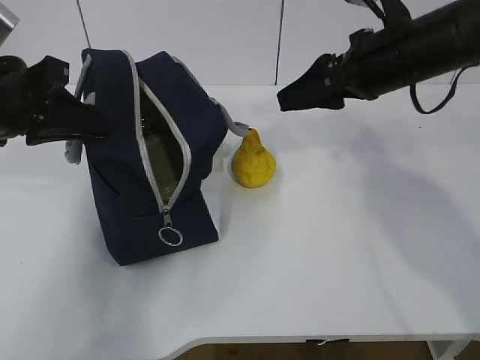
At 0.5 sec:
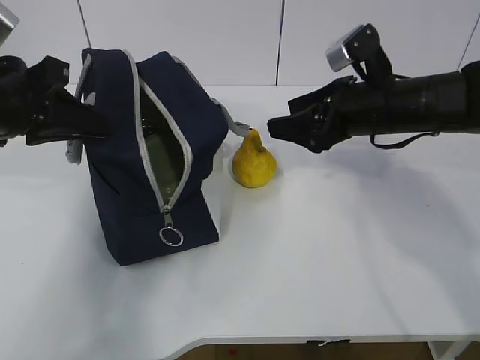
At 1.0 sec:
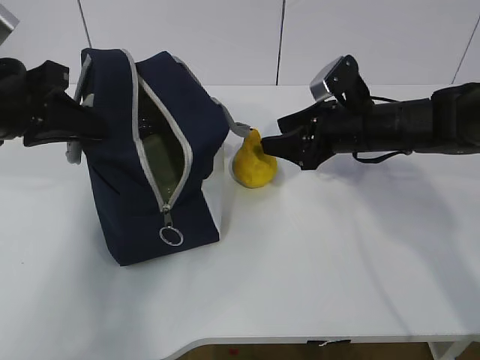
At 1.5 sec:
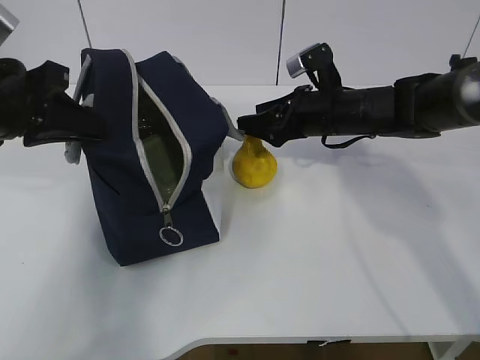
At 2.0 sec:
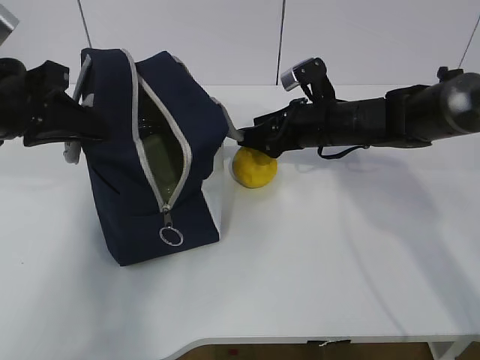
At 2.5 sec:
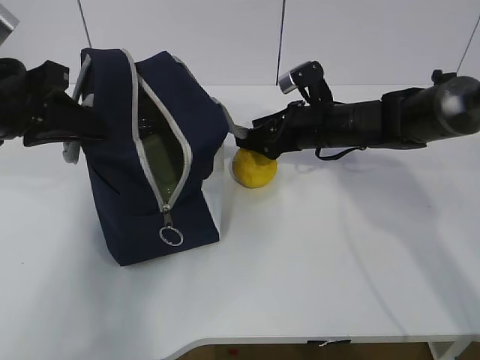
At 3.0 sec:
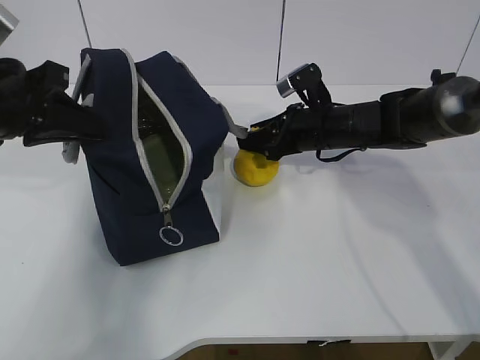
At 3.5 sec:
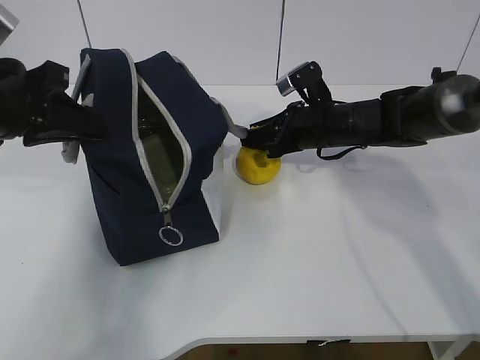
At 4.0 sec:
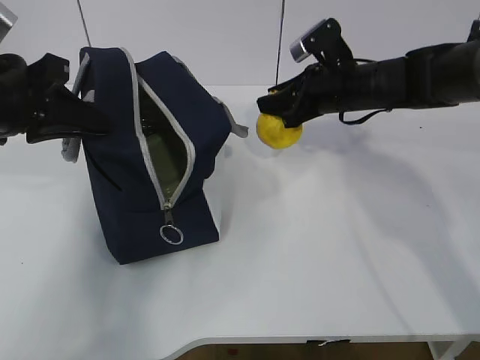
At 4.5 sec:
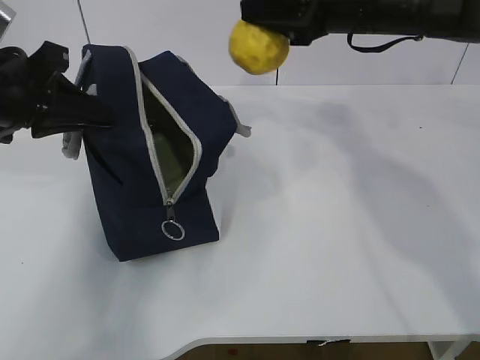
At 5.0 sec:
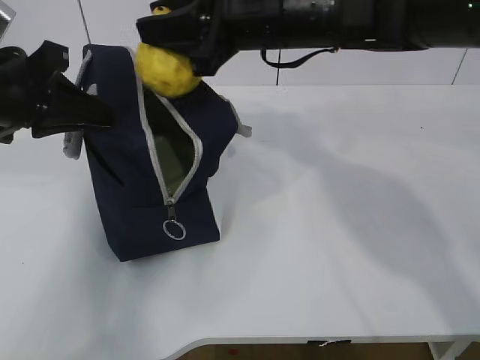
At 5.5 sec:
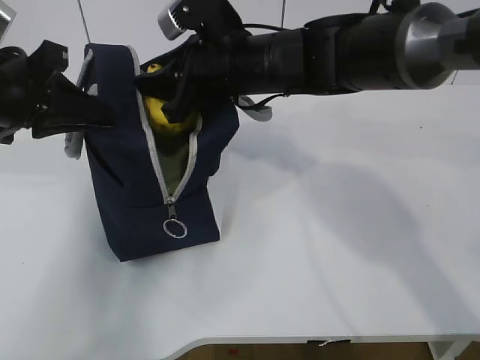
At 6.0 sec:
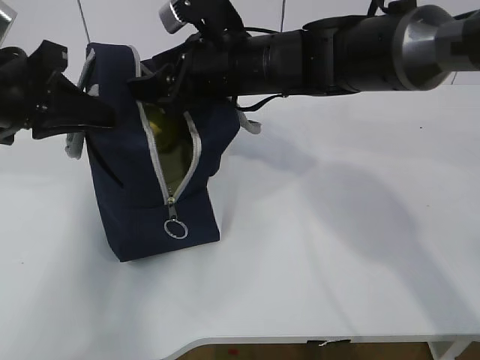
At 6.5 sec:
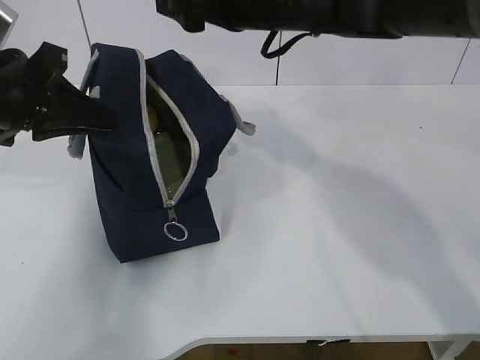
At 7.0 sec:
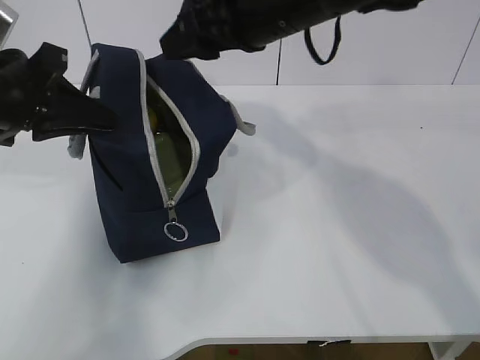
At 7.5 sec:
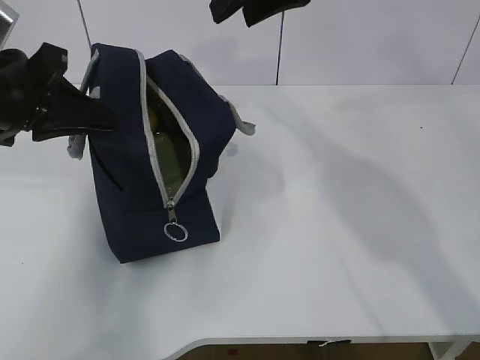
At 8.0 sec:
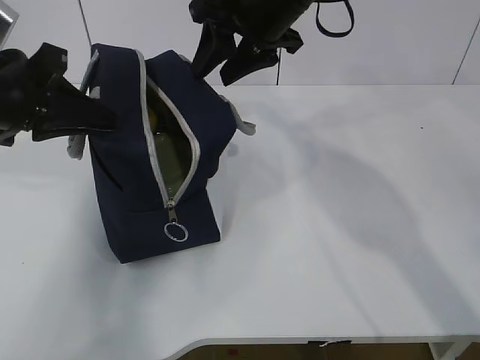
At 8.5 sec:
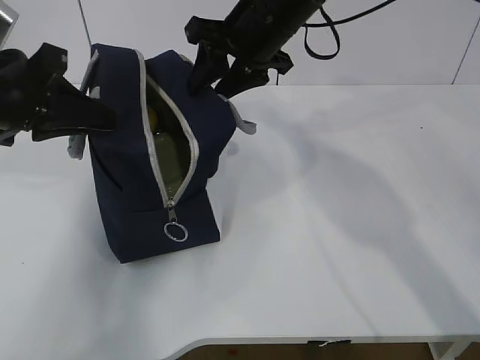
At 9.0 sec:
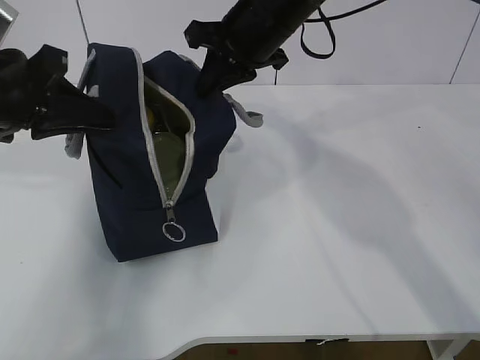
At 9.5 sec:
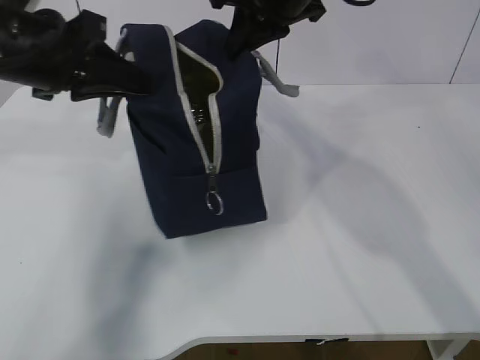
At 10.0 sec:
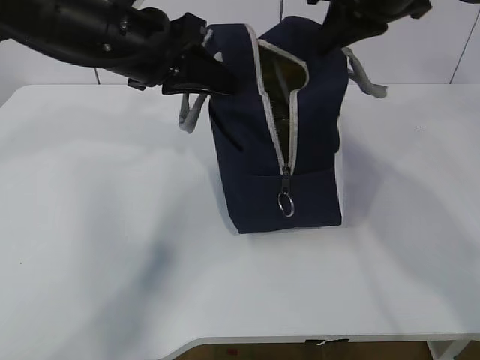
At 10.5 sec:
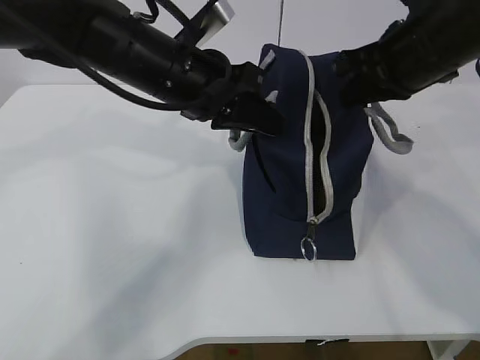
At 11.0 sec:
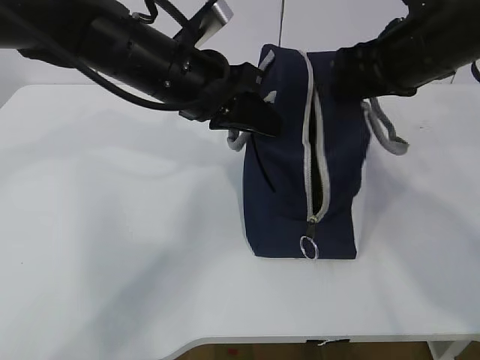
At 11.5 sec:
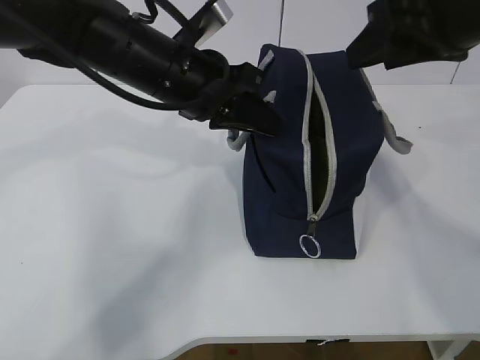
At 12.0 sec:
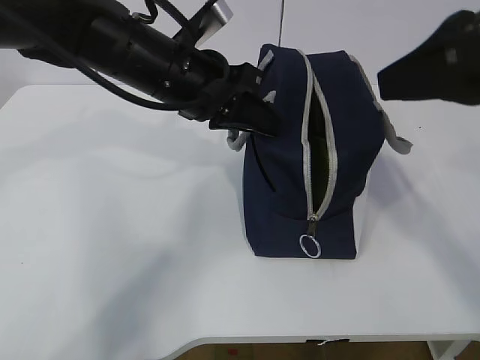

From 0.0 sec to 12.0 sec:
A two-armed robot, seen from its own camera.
Step, from 0.0 sec to 3.5 sec: Grasp the pear with the right gripper.
Step, from 4.0 sec to 7.0 sec: Place the pear into the package with the right gripper.
From 0.0 sec to 2.0 sec: The right gripper moves downward and forward, about 15 cm.
From 2.0 sec to 4.0 sec: The right gripper ends up some 5 cm from where it was, and closes.
From 4.0 sec to 6.0 sec: The right gripper travels to the left and upward by about 15 cm, and opens up.
From 6.0 sec to 8.0 sec: The right gripper shifts some 5 cm upward.
From 8.0 sec to 10.0 sec: The grippers both shift to the right by about 10 cm. The right gripper closes.
From 10.0 sec to 12.0 sec: The right gripper moves backward, roughly 15 cm, and opens its fingers, while the left gripper moves to the right, roughly 5 cm.

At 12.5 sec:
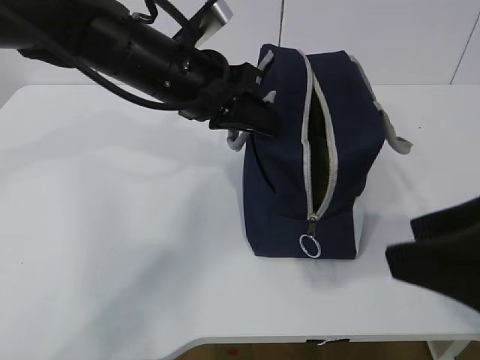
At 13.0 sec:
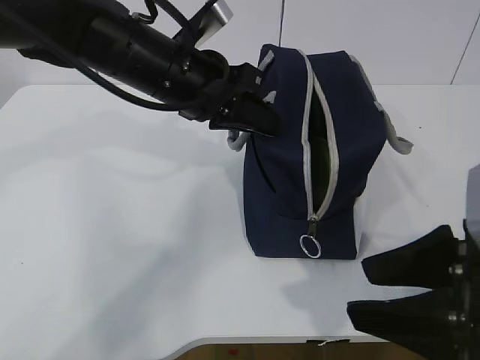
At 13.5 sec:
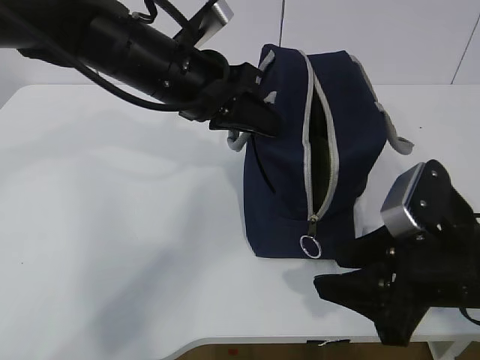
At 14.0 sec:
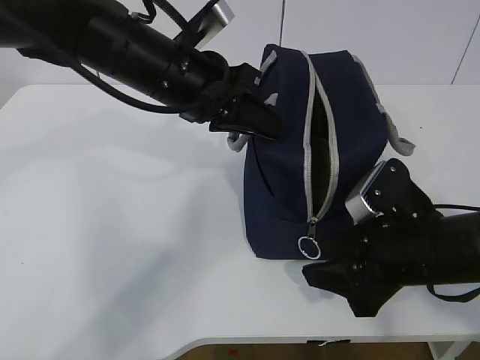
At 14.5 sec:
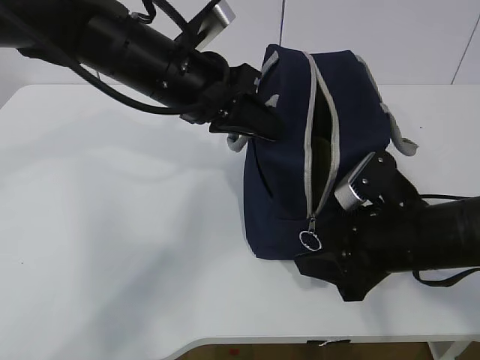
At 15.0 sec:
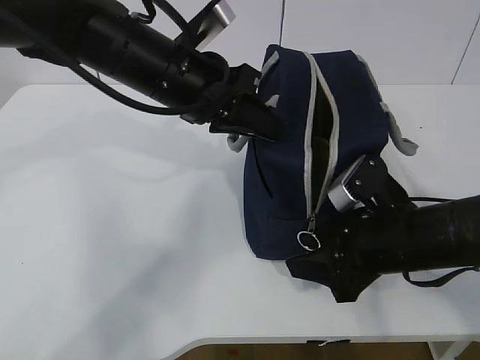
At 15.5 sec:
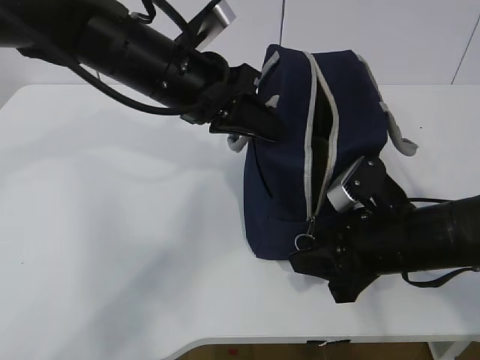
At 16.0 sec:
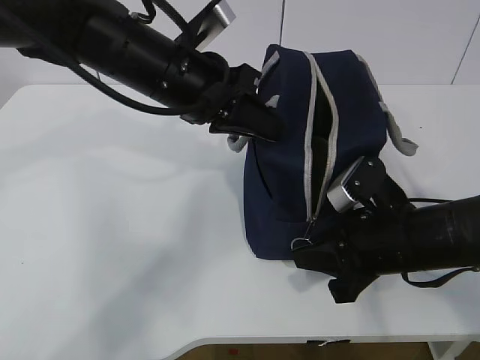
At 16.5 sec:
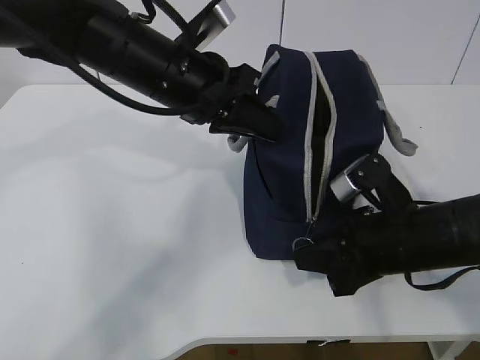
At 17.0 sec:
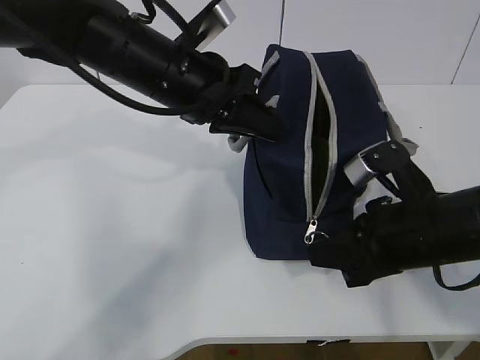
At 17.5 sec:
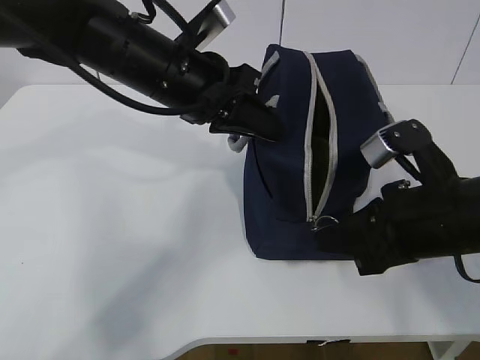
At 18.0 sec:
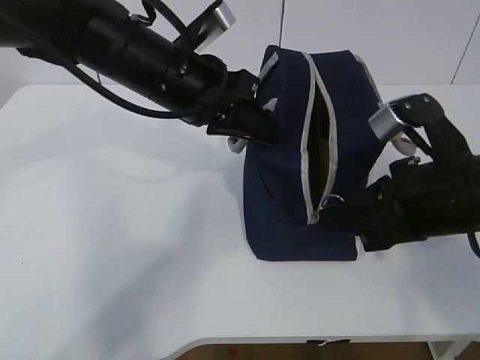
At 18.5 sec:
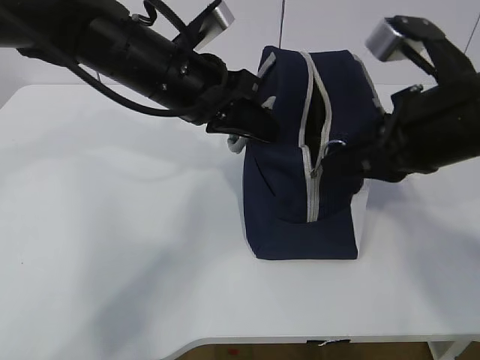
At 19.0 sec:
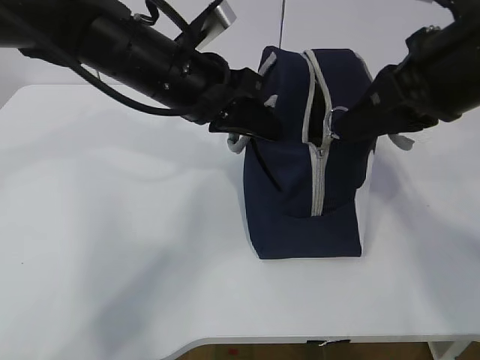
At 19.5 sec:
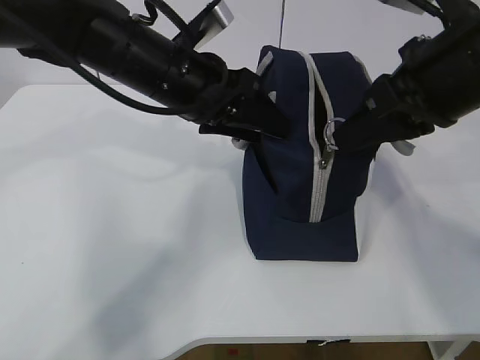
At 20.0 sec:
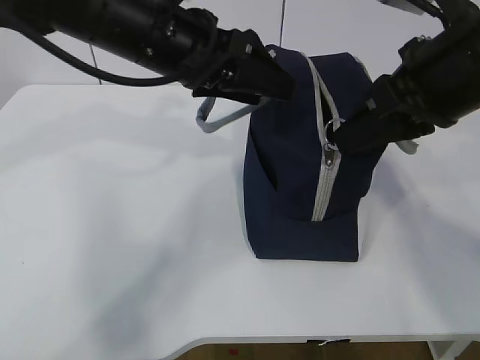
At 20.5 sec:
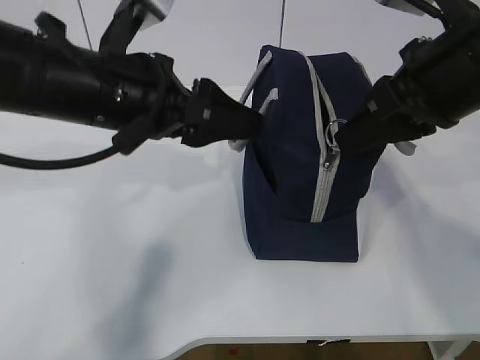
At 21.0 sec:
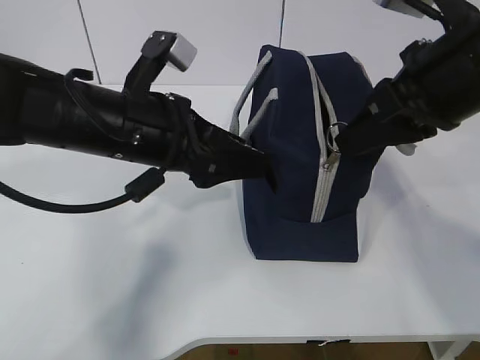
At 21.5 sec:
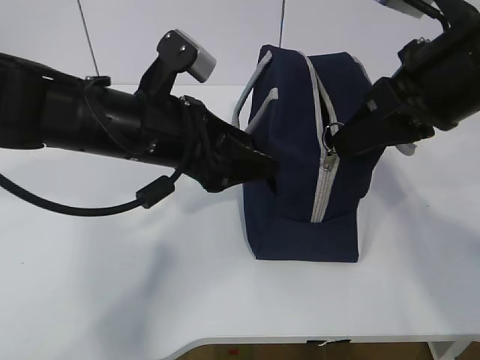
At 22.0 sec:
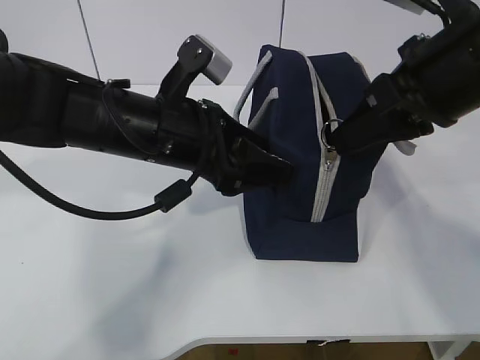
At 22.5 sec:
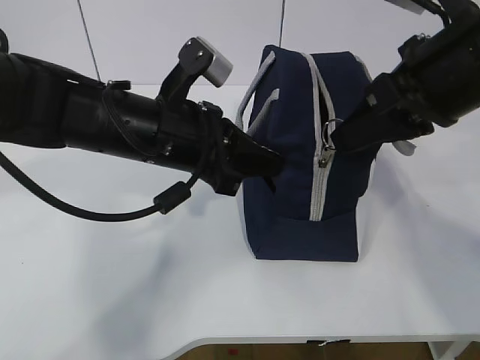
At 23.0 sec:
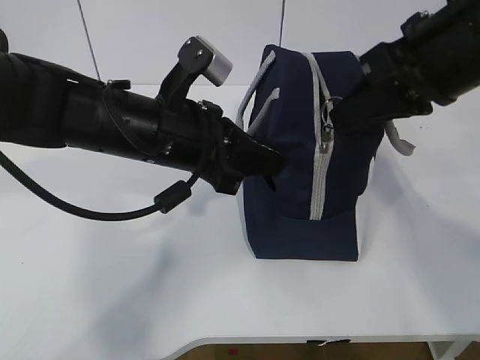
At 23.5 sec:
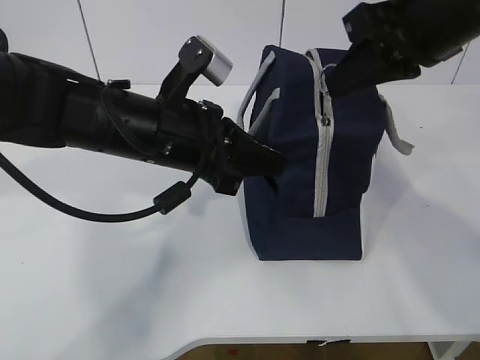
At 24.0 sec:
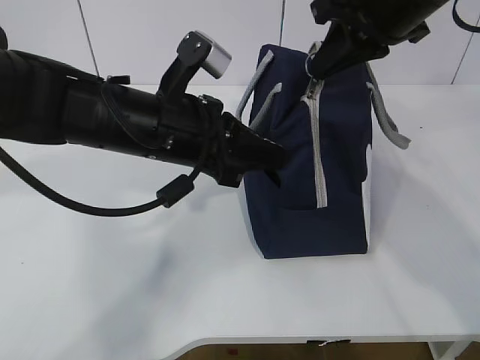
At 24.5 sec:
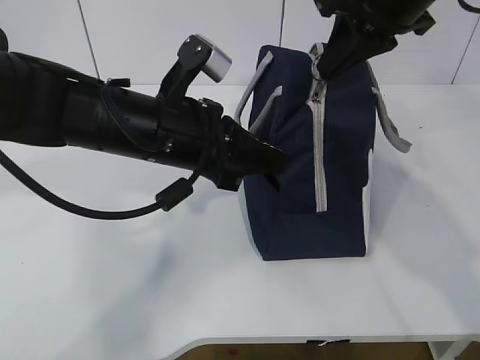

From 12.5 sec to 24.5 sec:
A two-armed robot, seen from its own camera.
From 12.5 sec to 14.5 sec: The right gripper heads downward and forward, covering approximately 20 cm.
From 14.5 sec to 16.5 sec: The right gripper closes.
From 16.5 sec to 18.5 sec: The right gripper shifts roughly 15 cm upward.
From 18.5 sec to 20.5 sec: The left gripper heads backward, covering some 5 cm, and opens up.
From 20.5 sec to 22.5 sec: The left gripper goes approximately 5 cm downward, and closes.
From 22.5 sec to 24.5 sec: The right gripper goes some 10 cm forward.

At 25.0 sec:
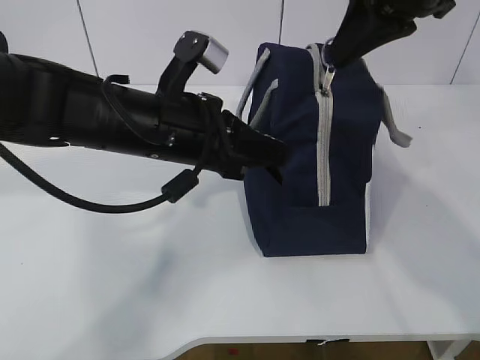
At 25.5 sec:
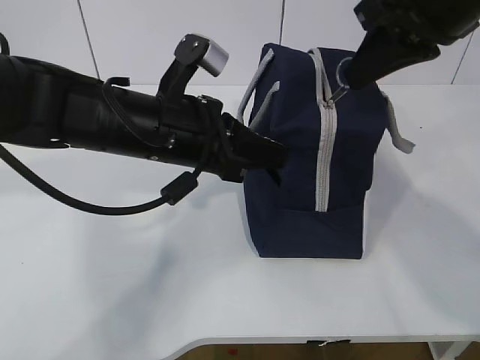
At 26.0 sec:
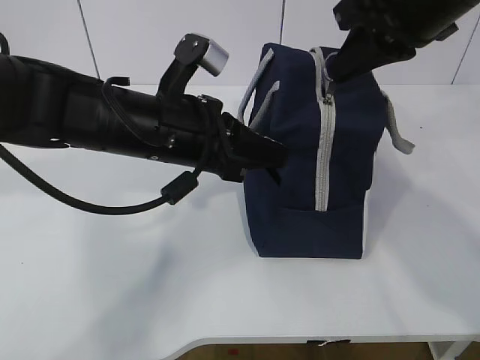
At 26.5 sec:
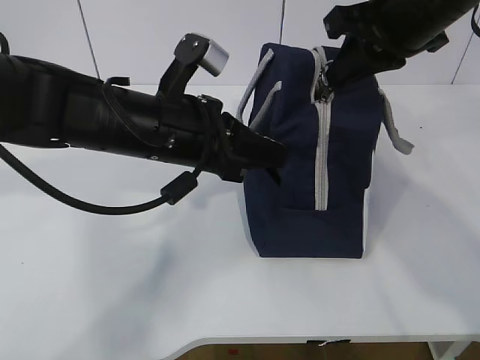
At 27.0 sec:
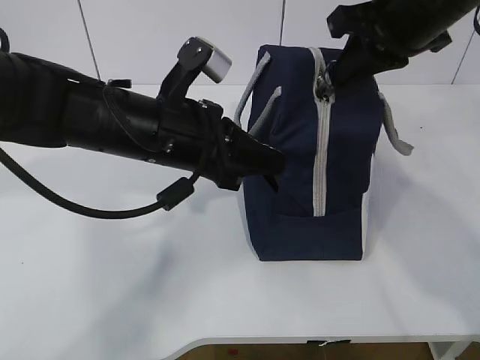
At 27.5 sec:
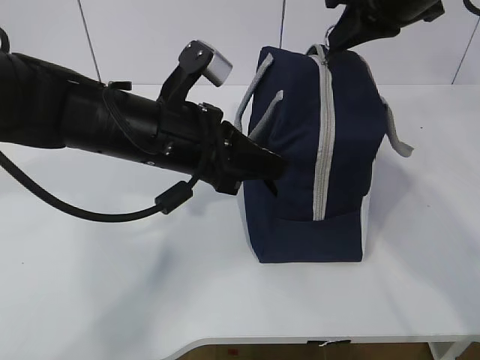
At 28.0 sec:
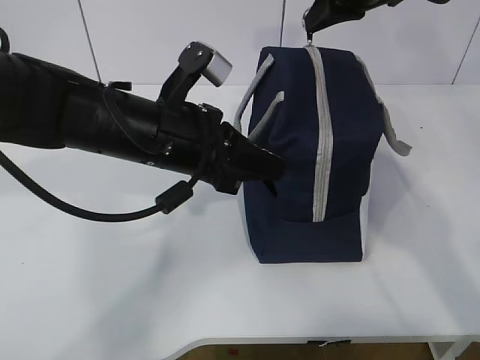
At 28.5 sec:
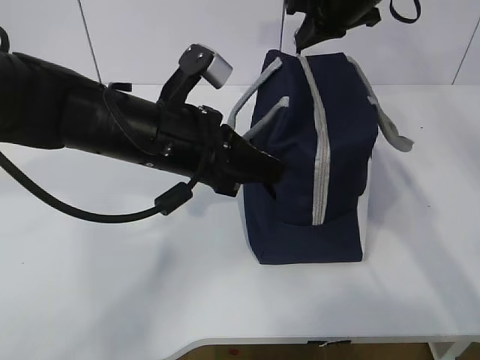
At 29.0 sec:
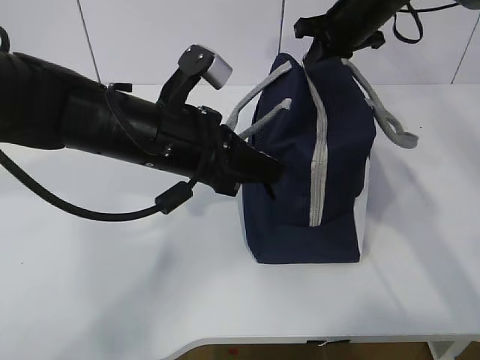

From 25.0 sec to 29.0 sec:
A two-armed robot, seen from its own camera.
From 25.0 sec to 27.0 sec: The grippers make only small movements.
From 27.0 sec to 29.0 sec: The right gripper travels forward and downward by approximately 20 cm.
